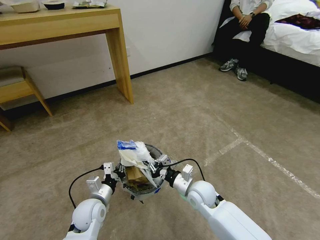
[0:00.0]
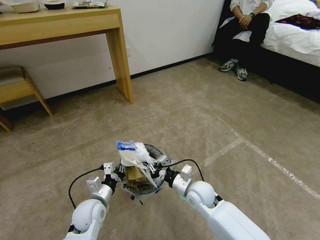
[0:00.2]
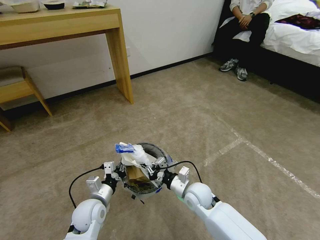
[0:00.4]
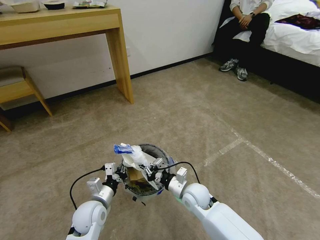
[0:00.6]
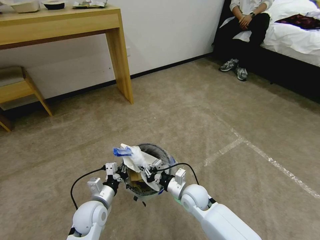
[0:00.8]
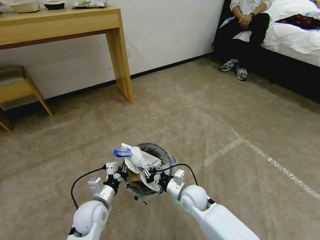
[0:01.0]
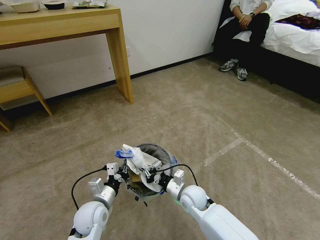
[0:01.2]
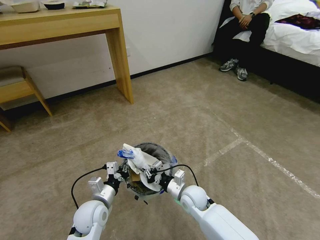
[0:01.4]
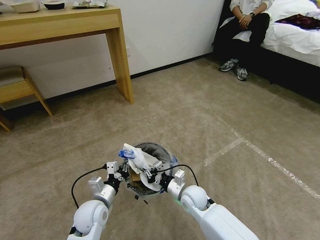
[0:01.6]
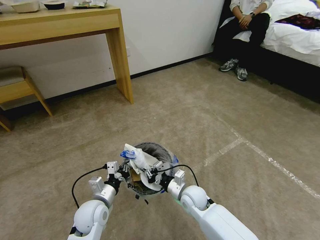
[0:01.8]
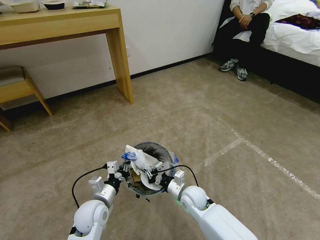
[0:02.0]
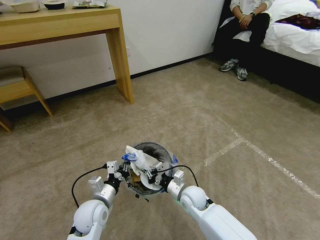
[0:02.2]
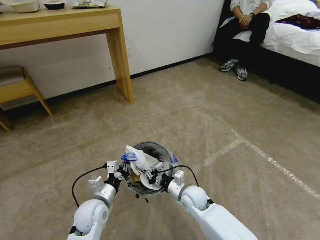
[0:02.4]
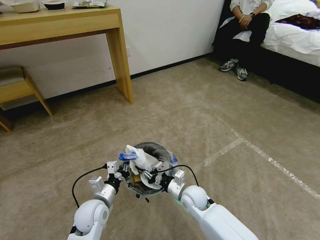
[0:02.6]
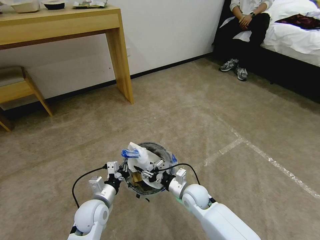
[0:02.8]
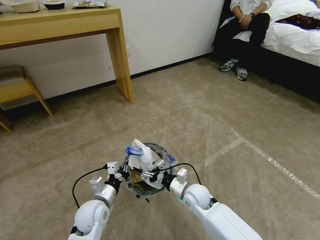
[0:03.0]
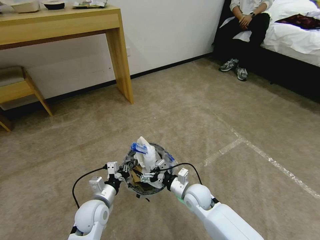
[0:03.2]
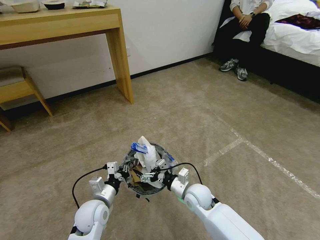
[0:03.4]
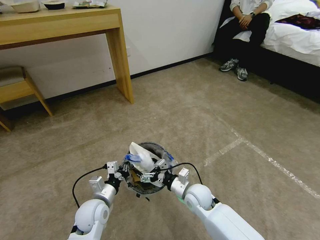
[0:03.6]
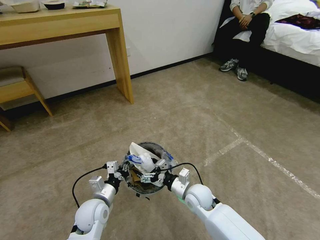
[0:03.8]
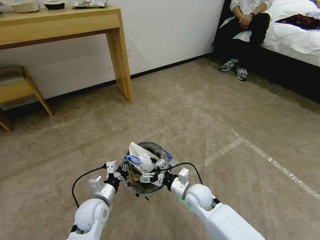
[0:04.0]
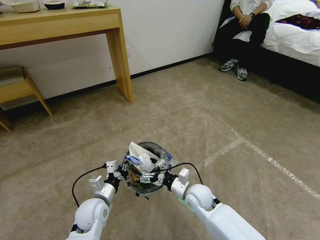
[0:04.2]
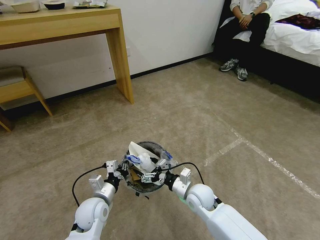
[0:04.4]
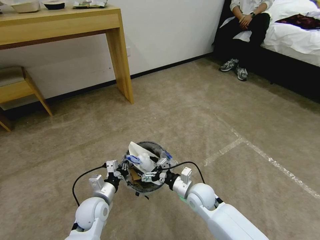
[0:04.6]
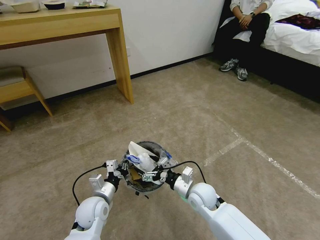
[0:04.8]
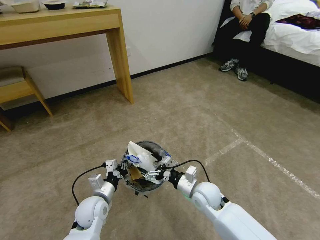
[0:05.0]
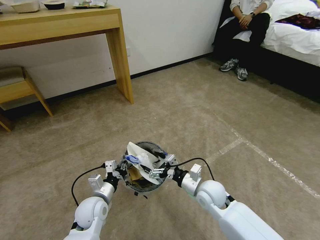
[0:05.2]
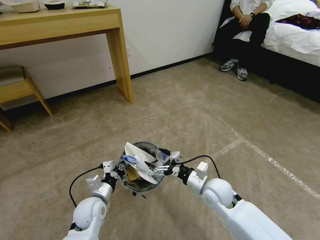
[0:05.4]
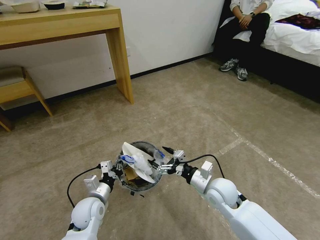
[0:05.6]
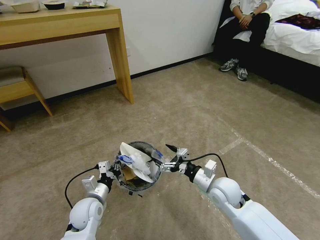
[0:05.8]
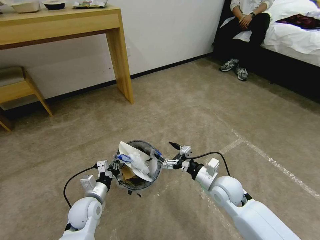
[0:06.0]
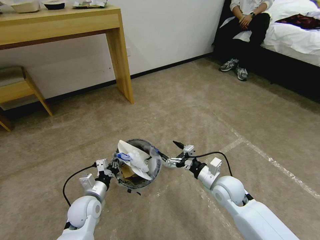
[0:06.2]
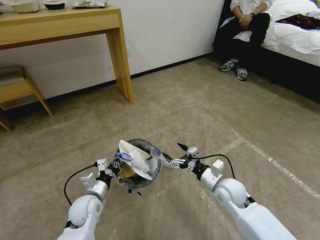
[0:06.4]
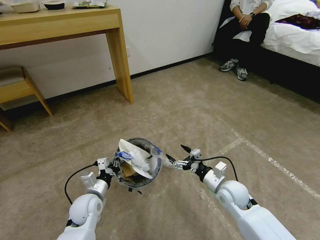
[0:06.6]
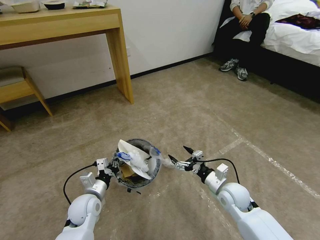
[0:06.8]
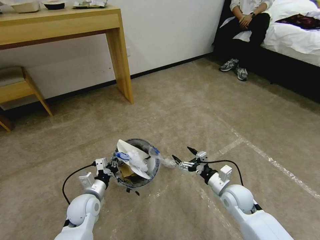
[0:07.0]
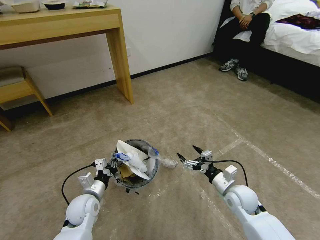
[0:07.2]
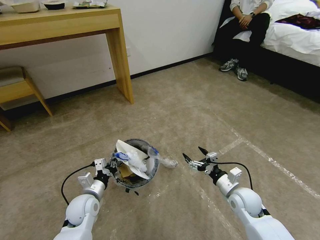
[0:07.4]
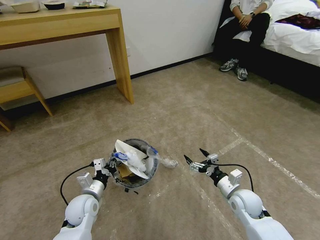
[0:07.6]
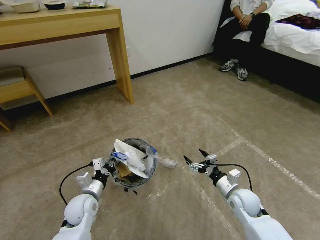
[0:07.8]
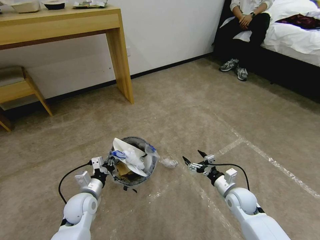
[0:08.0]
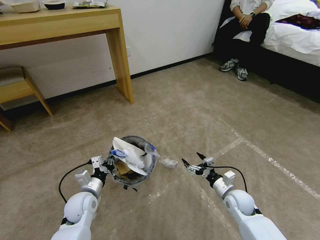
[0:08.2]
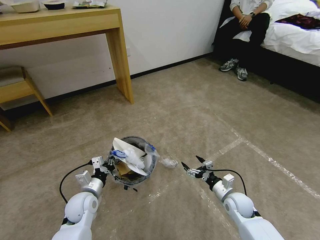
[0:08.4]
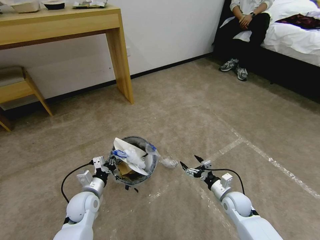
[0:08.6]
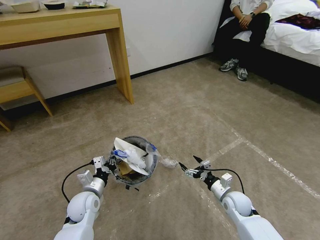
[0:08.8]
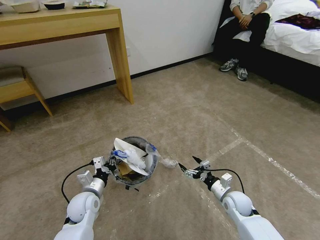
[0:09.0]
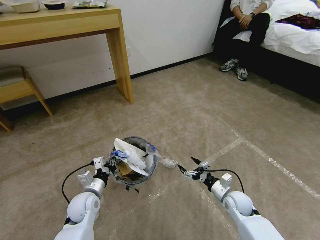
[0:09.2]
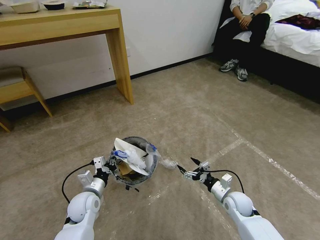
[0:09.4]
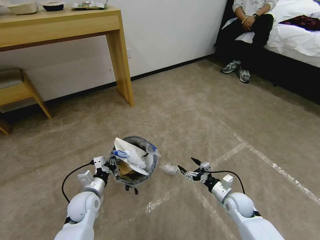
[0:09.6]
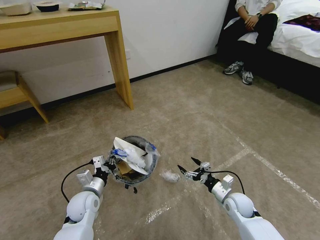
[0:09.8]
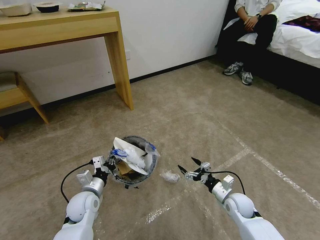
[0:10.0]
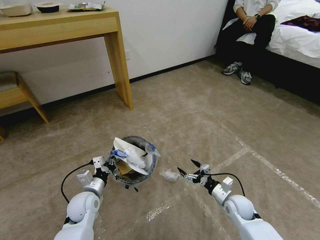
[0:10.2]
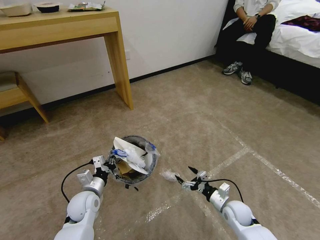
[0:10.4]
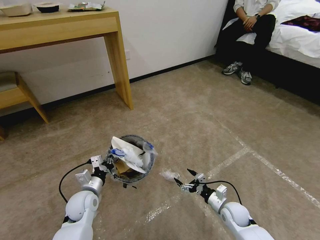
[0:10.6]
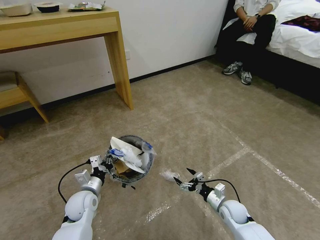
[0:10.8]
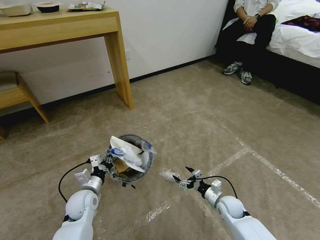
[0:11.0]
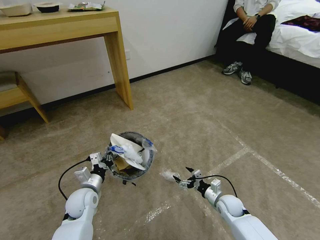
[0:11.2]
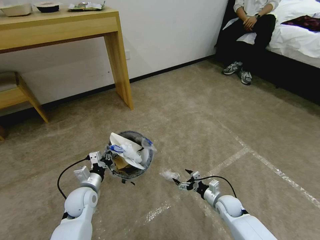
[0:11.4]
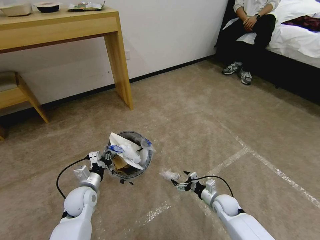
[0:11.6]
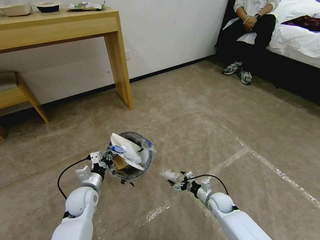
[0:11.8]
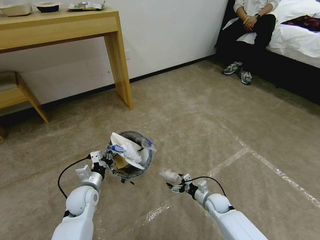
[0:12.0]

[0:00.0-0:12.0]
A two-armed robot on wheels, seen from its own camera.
Task of the whole recording: Pick up the trash bin and place the garbage on the floor into it.
0:00.0 to 0:01.6: The grippers move only a little.
0:01.6 to 0:03.0: The right gripper opens its fingers.
0:03.0 to 0:04.4: The grippers move only a little.
0:04.4 to 0:06.0: The right gripper travels to the right and upward by some 10 cm.
0:06.0 to 0:07.6: The right gripper travels to the right and downward by about 10 cm.
0:07.6 to 0:09.0: The right gripper goes some 5 cm downward.
0:09.0 to 0:10.4: The grippers move only a little.
0:10.4 to 0:12.0: The right gripper shifts approximately 5 cm downward.

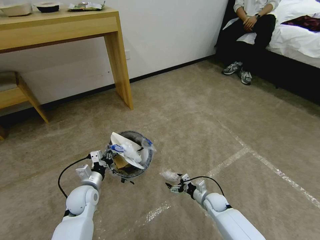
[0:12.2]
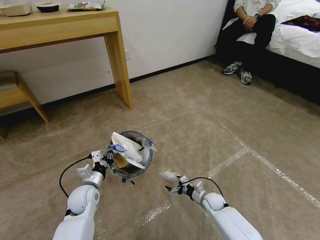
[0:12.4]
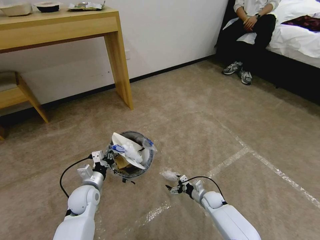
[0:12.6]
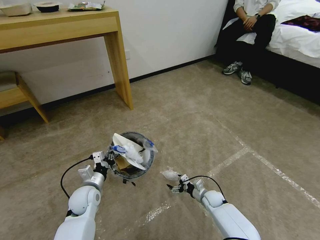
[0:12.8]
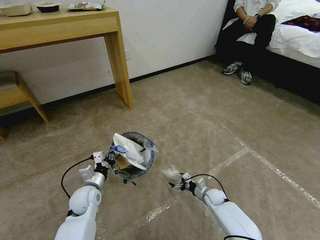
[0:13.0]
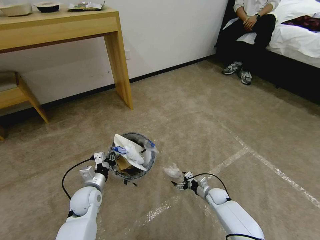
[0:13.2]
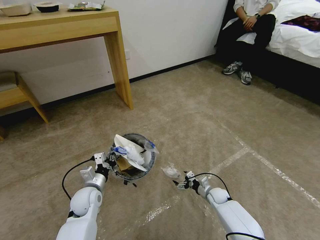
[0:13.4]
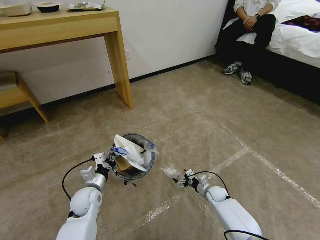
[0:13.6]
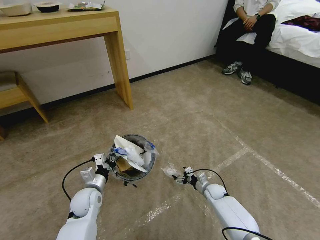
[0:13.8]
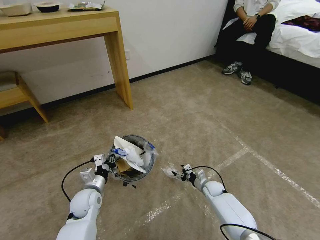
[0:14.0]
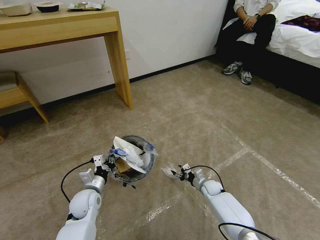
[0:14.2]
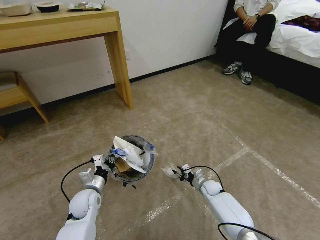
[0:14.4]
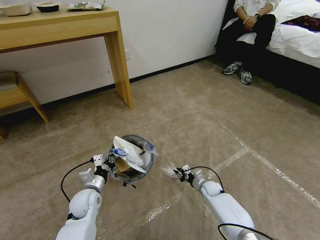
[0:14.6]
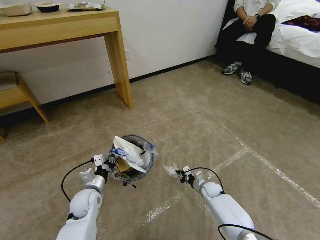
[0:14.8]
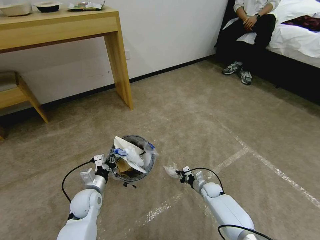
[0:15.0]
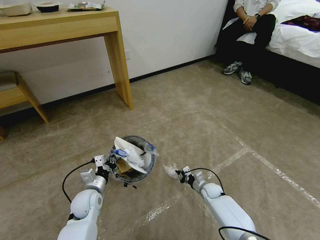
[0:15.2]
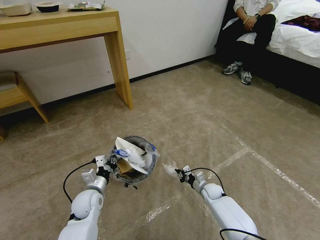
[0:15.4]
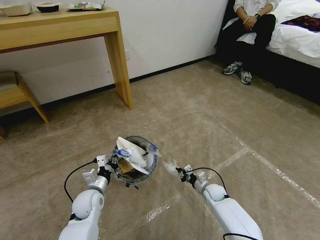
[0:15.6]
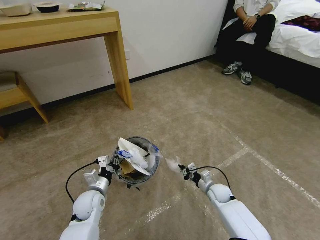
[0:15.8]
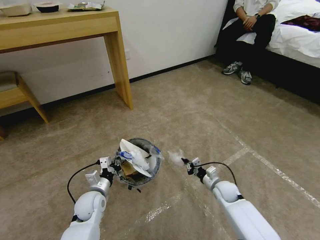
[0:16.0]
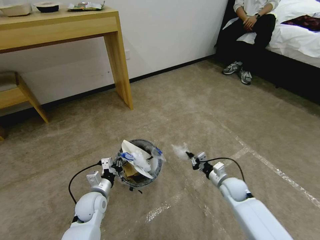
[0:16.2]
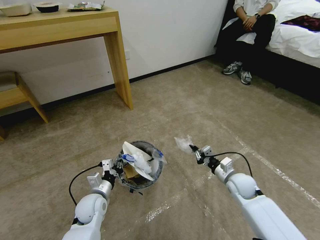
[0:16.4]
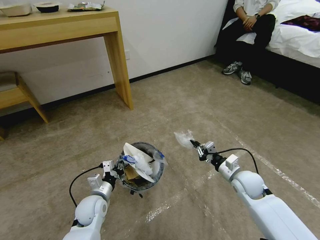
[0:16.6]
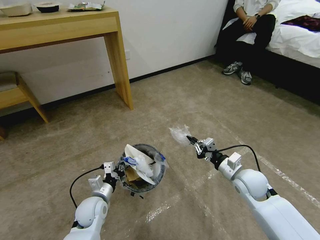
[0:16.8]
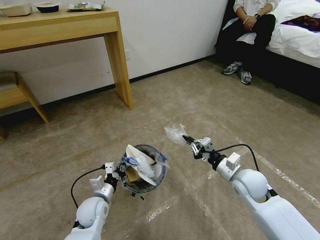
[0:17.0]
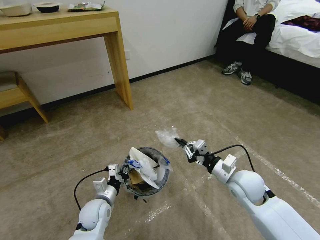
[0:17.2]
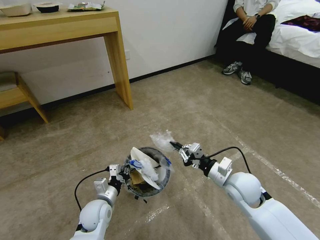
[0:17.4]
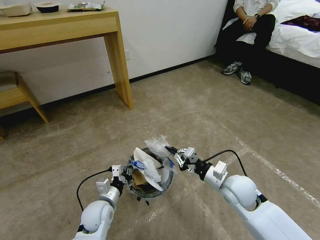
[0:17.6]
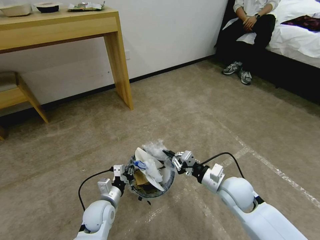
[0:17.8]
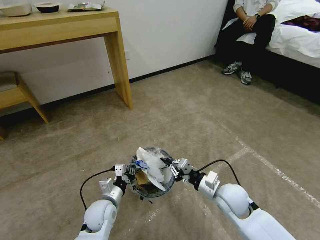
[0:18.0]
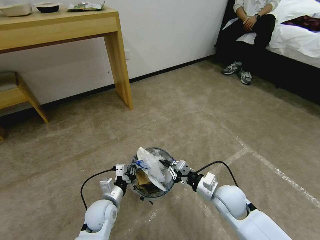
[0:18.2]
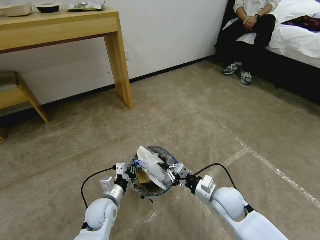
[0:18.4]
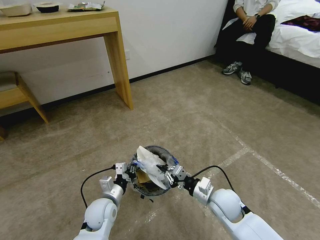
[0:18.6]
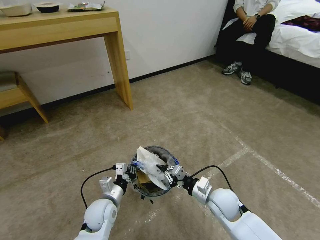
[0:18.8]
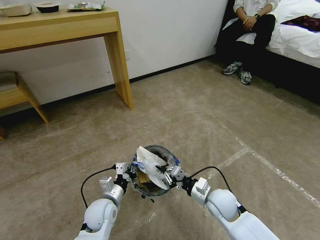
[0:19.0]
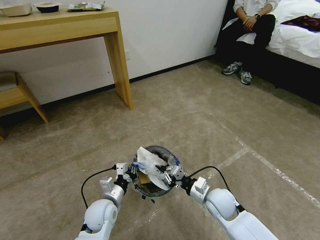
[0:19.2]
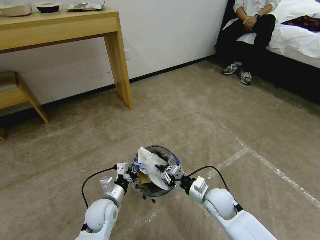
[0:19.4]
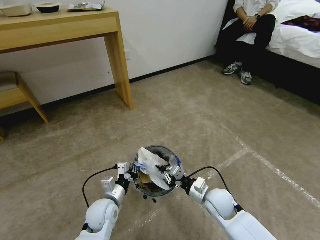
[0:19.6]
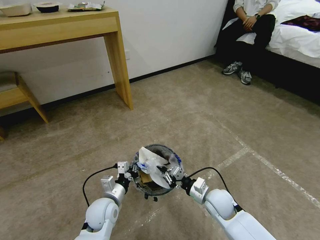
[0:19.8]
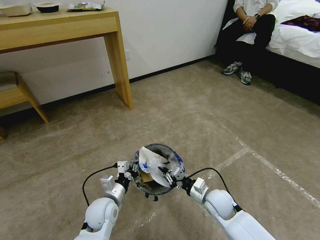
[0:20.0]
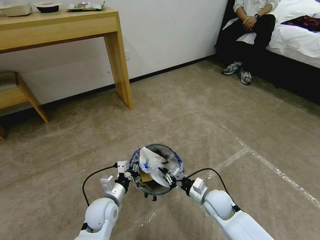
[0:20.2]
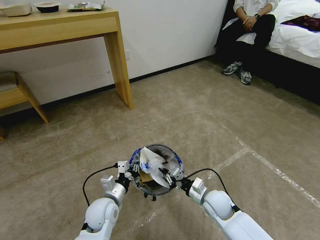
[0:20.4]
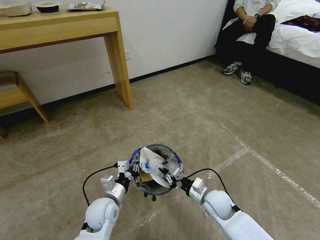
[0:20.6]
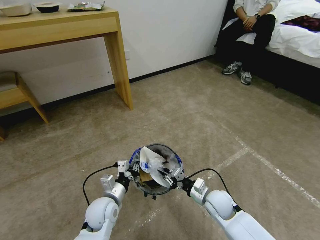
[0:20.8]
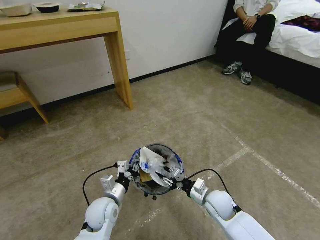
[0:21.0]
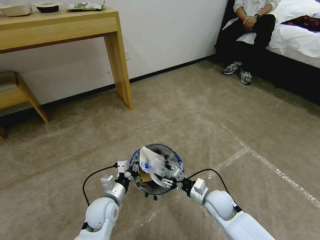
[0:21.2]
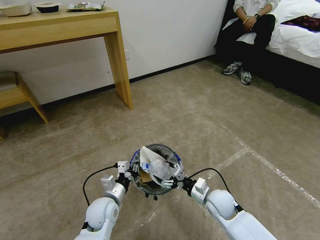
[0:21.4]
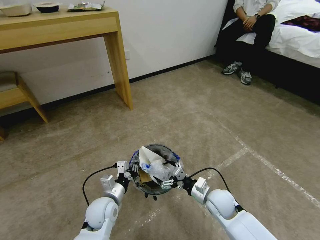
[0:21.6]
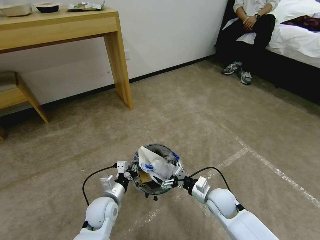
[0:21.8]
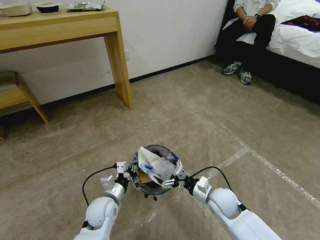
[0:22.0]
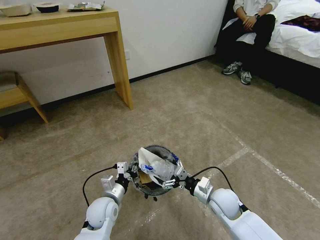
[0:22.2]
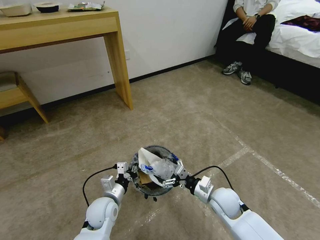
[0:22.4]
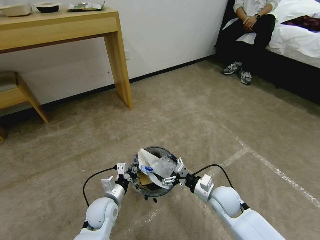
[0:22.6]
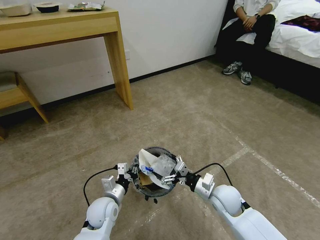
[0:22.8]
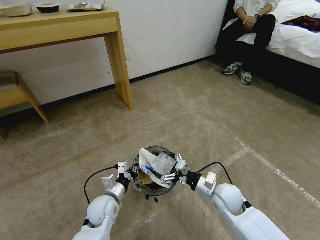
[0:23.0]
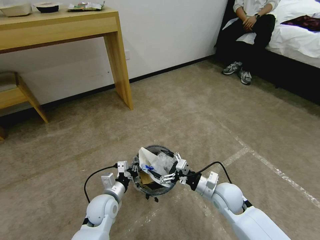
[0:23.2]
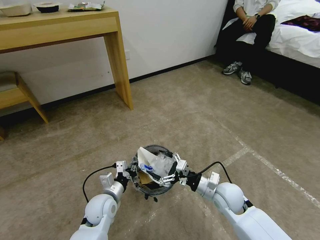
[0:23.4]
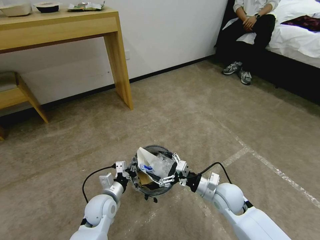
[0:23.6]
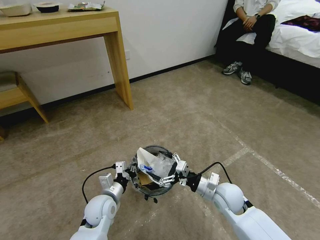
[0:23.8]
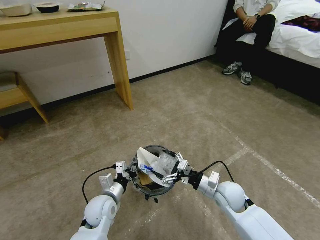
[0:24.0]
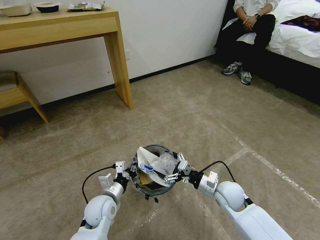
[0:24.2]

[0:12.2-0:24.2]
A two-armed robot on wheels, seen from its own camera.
Task of the whole recording: Pick up the trash bin and place the garbage on the floor into it.
0:12.2 to 0:13.8: The right gripper heads forward, covering about 5 cm.
0:13.8 to 0:15.2: The right gripper closes.
0:15.2 to 0:16.6: The right gripper heads upward, covering roughly 20 cm.
0:16.6 to 0:18.2: The right gripper heads to the left and backward, covering about 10 cm.
0:18.2 to 0:19.8: The right gripper travels downward by approximately 5 cm.
0:19.8 to 0:21.2: The right gripper opens up.
0:21.2 to 0:22.6: The right gripper opens.
0:22.6 to 0:24.2: The grippers make only small movements.
